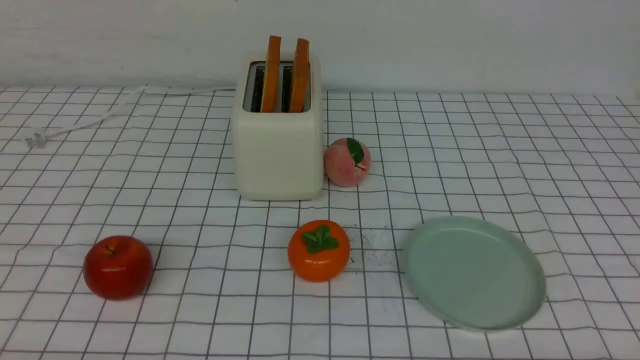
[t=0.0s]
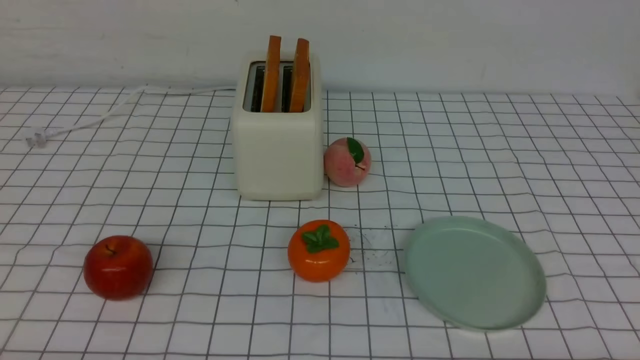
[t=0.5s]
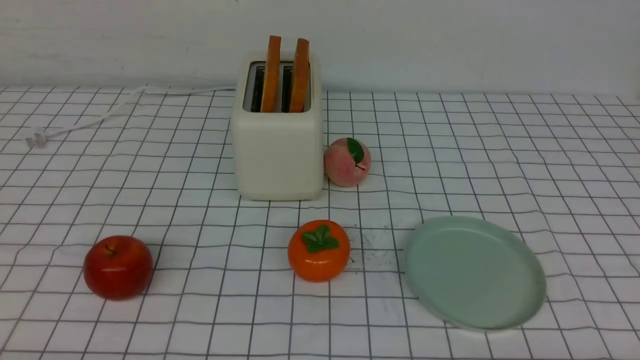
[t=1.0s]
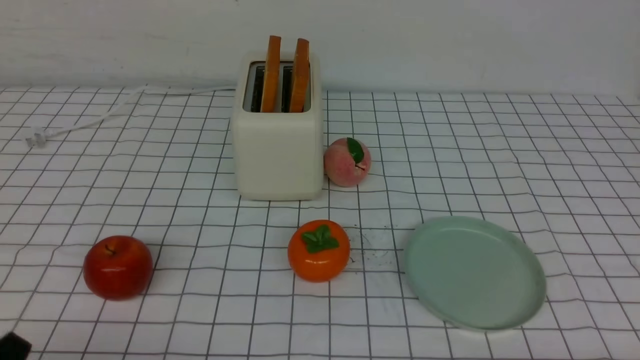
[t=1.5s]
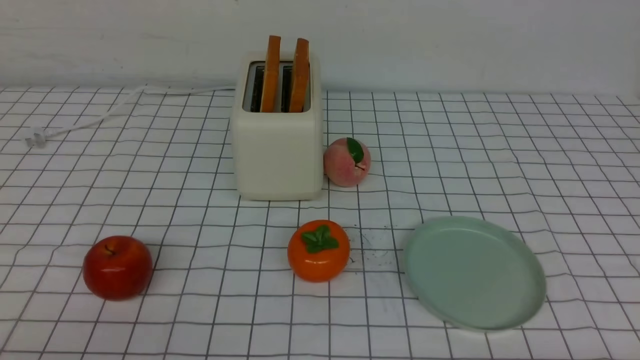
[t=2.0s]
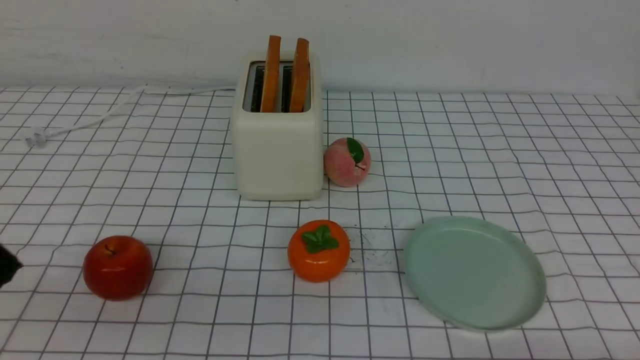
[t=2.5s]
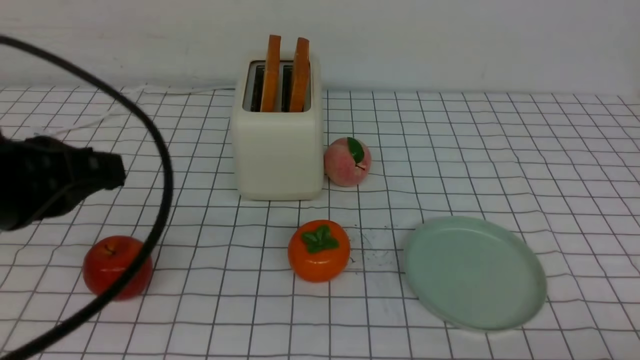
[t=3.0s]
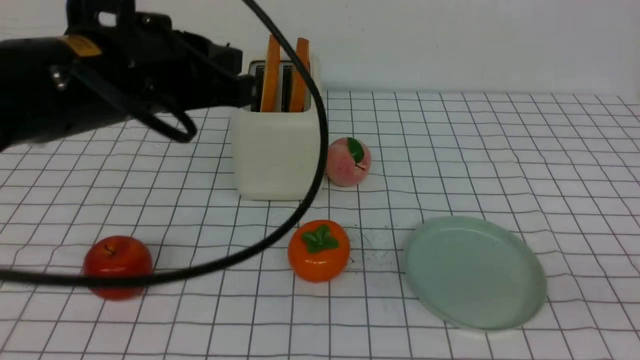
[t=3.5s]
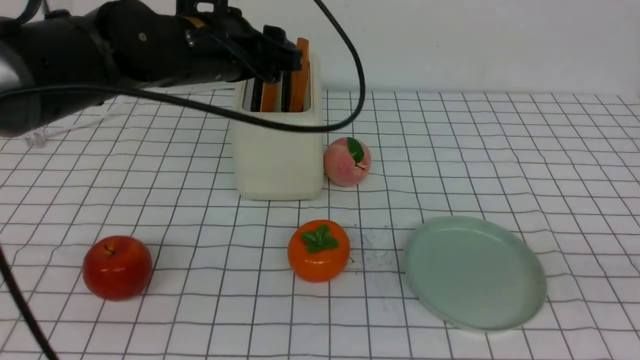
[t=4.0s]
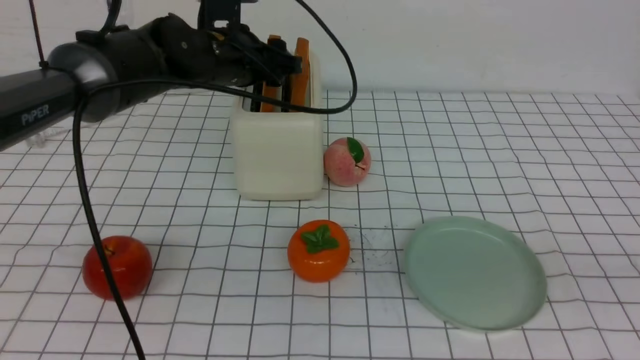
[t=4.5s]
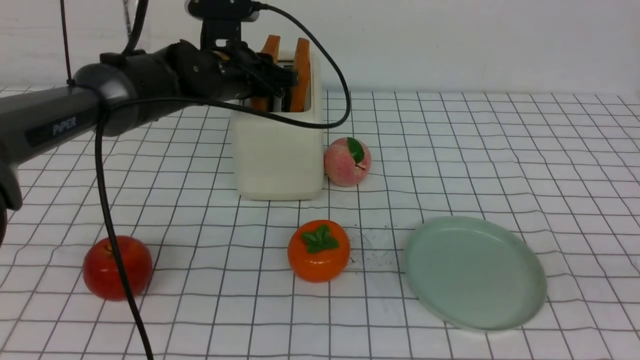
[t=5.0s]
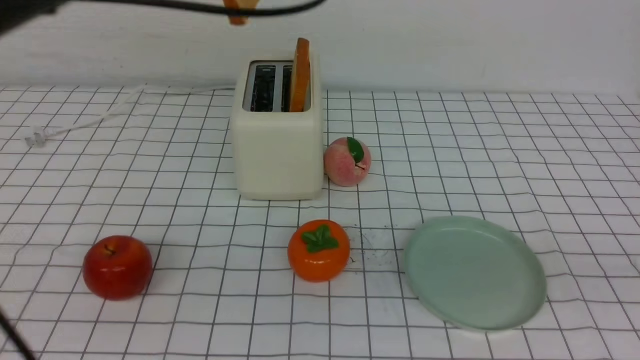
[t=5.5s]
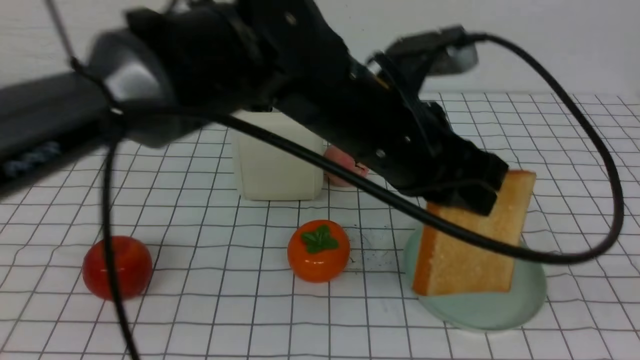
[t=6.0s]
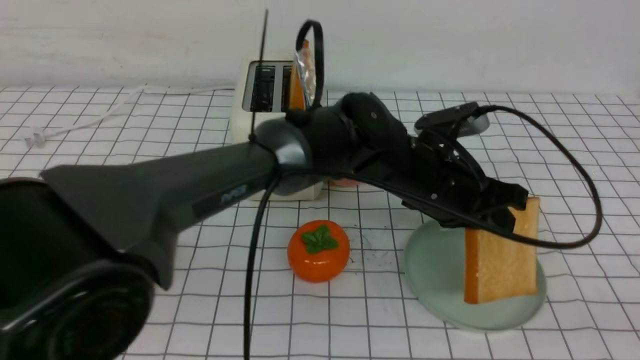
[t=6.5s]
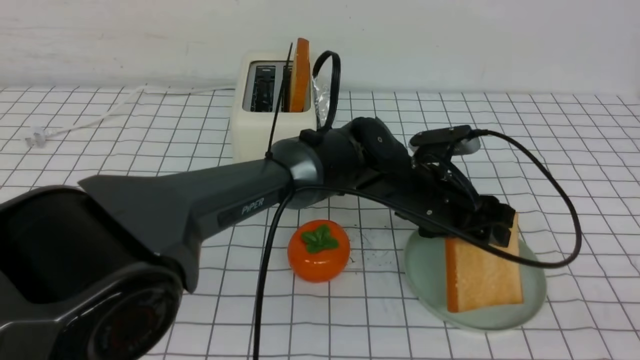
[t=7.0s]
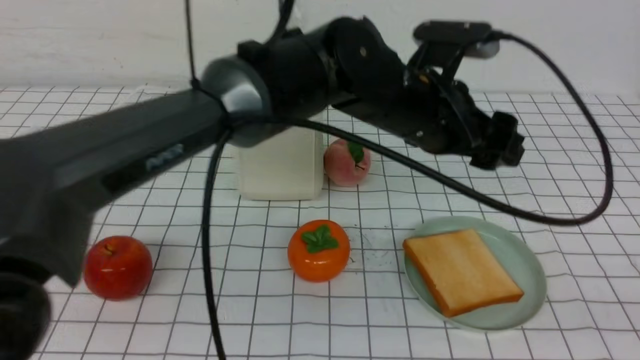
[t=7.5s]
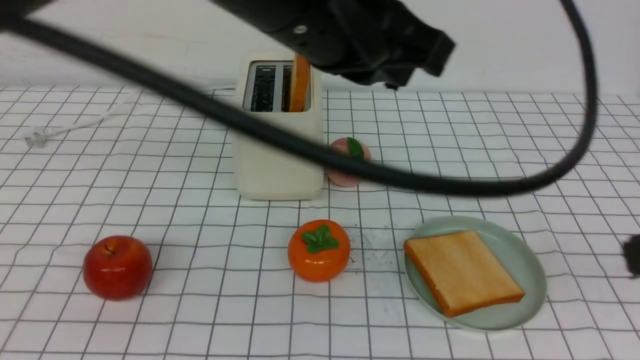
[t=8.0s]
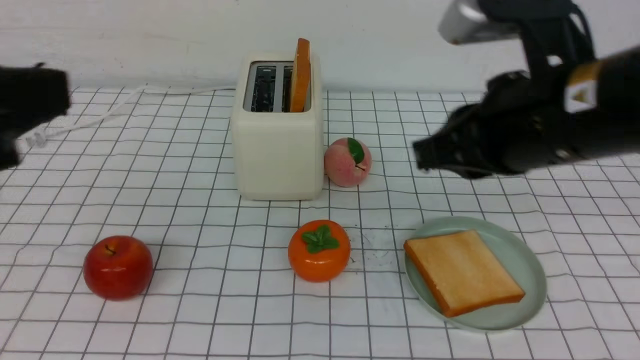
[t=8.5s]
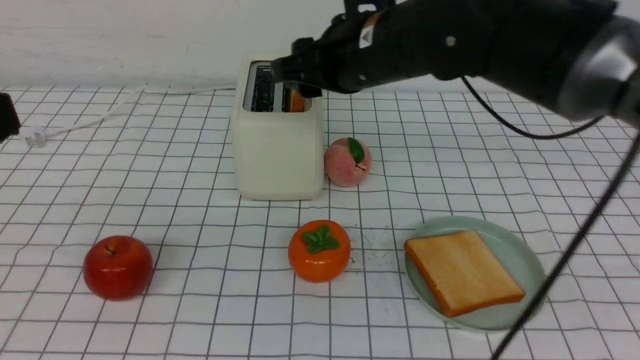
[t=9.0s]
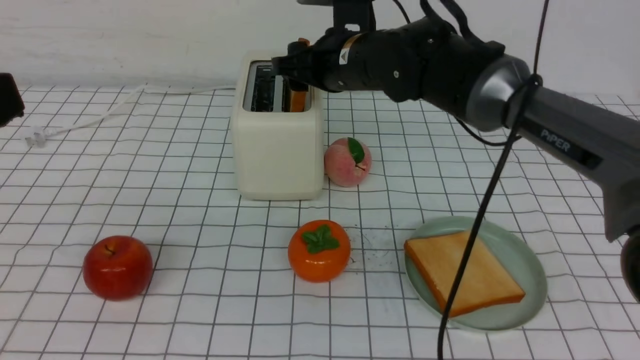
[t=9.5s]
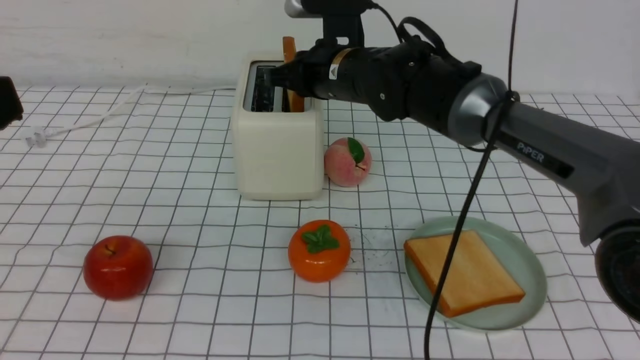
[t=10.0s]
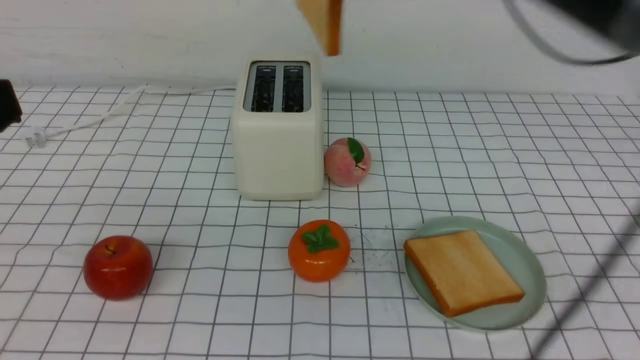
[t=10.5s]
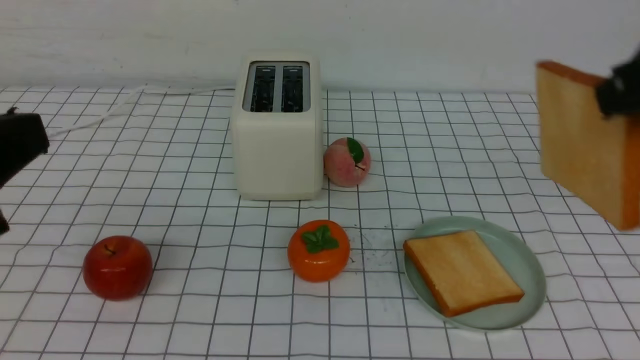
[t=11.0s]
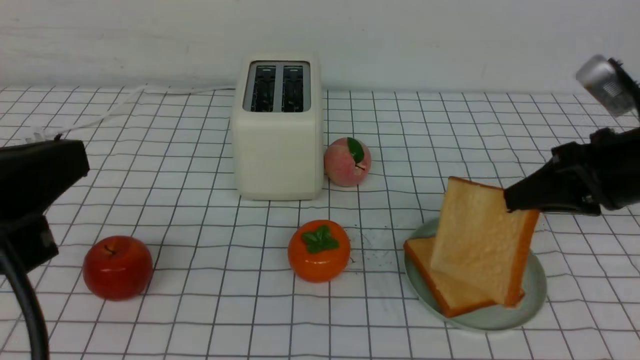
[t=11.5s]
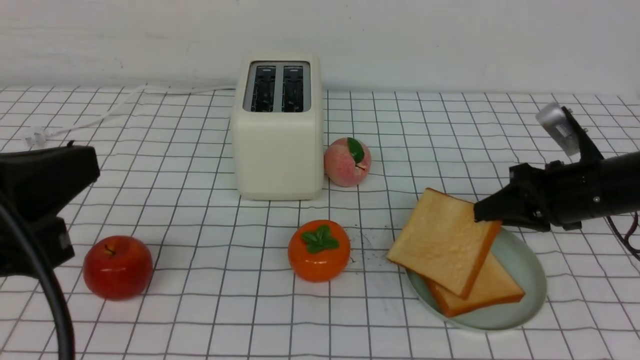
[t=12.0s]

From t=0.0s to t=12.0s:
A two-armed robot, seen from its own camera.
Task of the whole recording: take toasted bread from bread machine on white checkered table place on plate.
Step, from t=0.0s to t=5.0s: use the left arm to take out a slice of bread.
Step, from t=5.5s to t=7.0s: use the left arm to put a slice of bread into the empty plate.
Step, from t=8.0s to t=10.0s: use the right arm to take out a slice of bread.
From t=2.0s to t=4.0s: The left gripper heads forward and to the right, covering approximately 35 cm, and opens up. The right gripper moves upward, approximately 25 cm, and closes its fingers.
From t=4.0s to t=6.0s: The left gripper is displaced to the right and backward by some 15 cm, and closes up.
From t=6.0s to t=8.0s: The right gripper moves forward, some 5 cm. Meanwhile the left gripper moves upward, to the left and backward, roughly 15 cm, and opens, then closes again.
From t=8.0s to t=10.0s: The right gripper shifts some 40 cm forward and to the left, and opens and closes again. Meanwhile the left gripper moves to the left and backward, approximately 25 cm.
From t=10.0s to t=12.0s: The right gripper heads to the right and backward, covering some 30 cm.

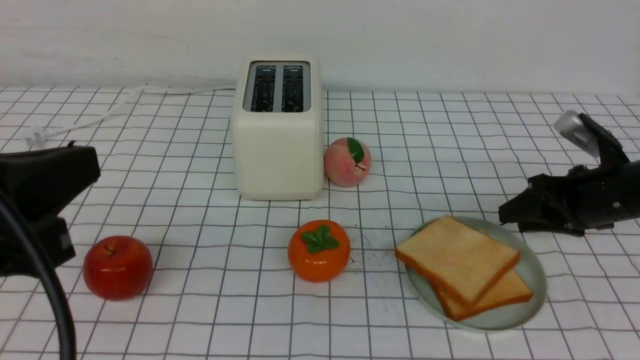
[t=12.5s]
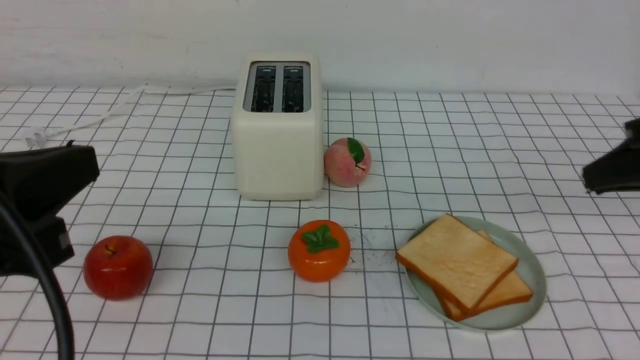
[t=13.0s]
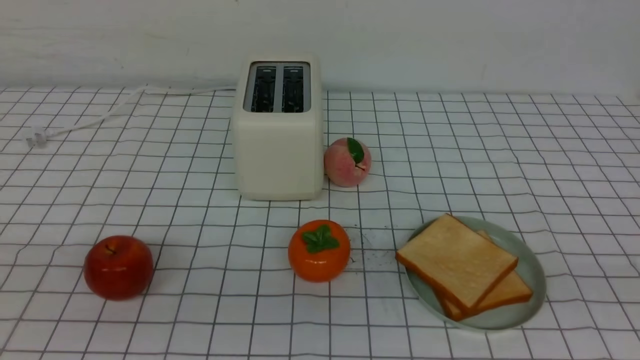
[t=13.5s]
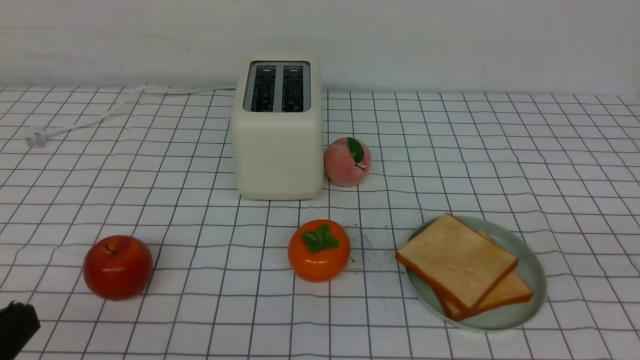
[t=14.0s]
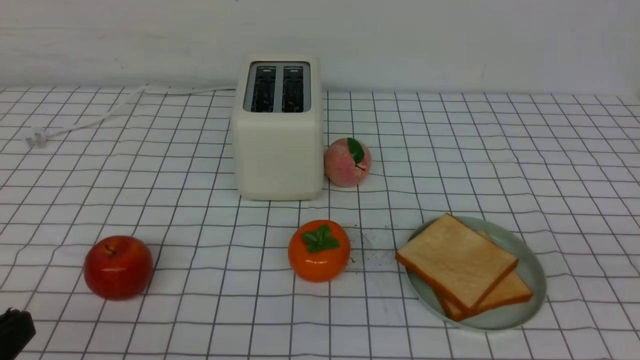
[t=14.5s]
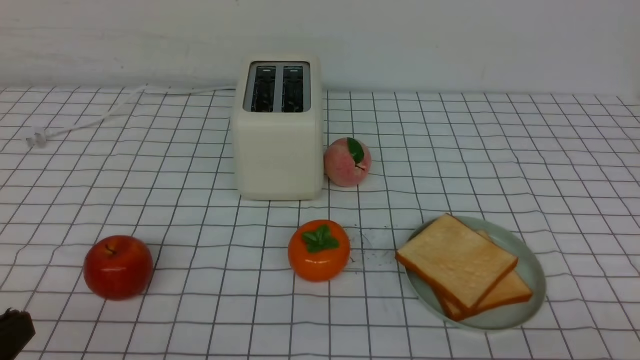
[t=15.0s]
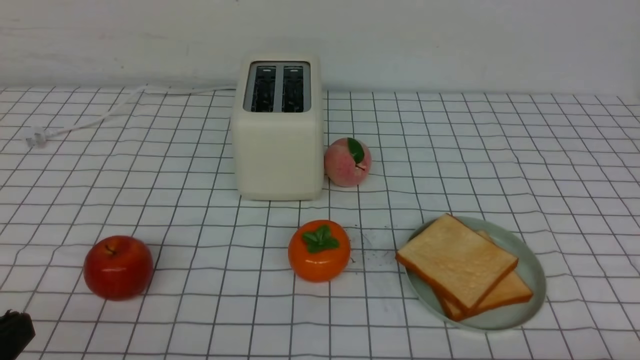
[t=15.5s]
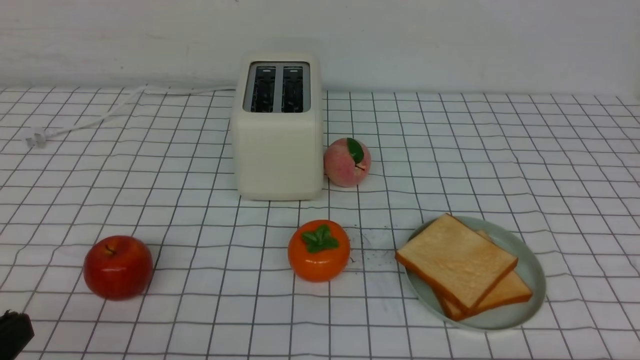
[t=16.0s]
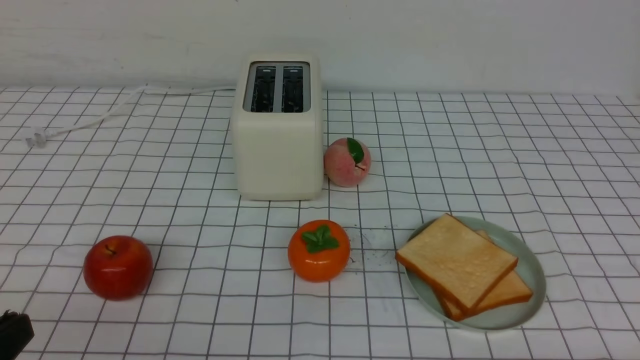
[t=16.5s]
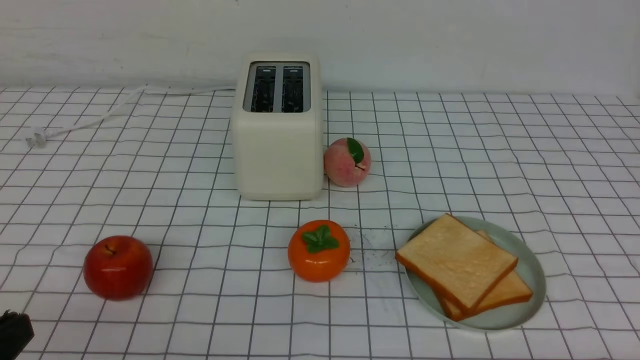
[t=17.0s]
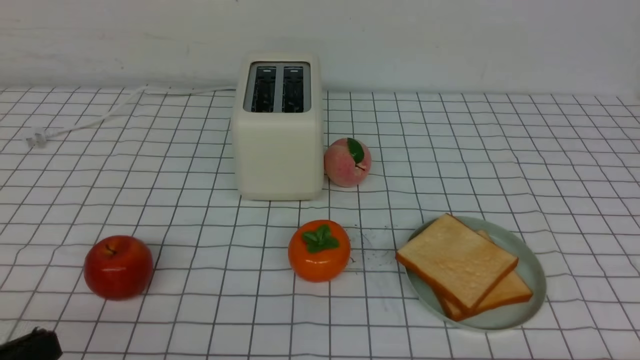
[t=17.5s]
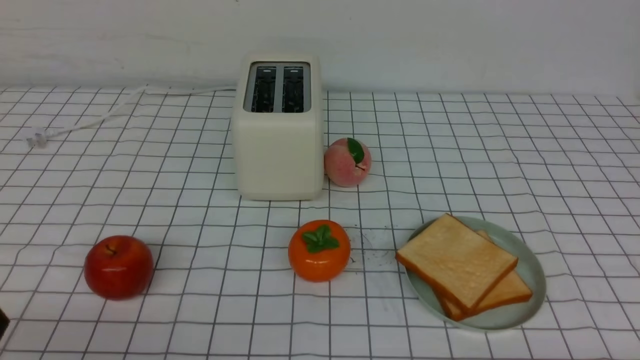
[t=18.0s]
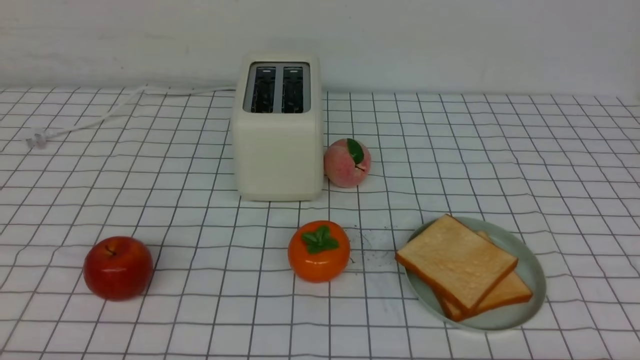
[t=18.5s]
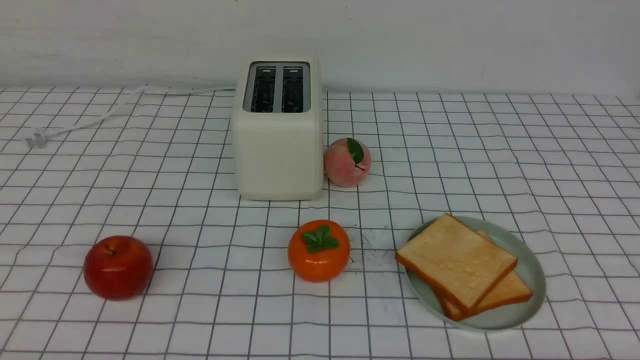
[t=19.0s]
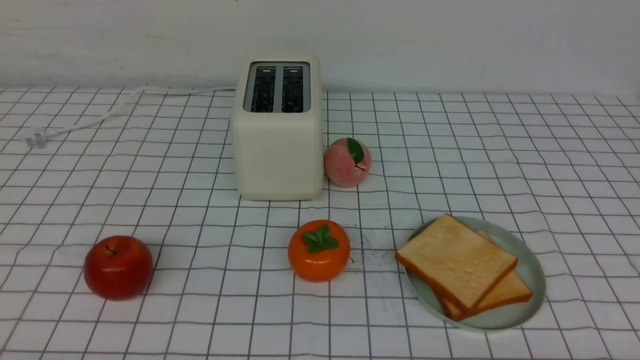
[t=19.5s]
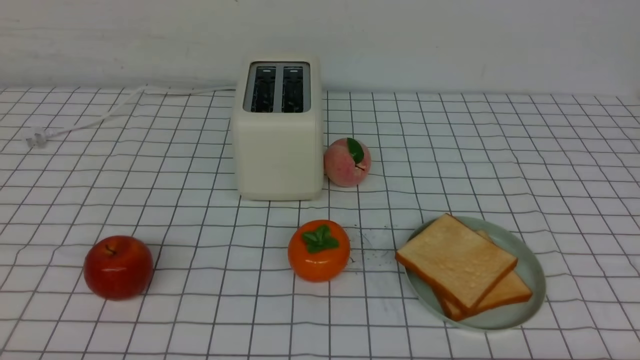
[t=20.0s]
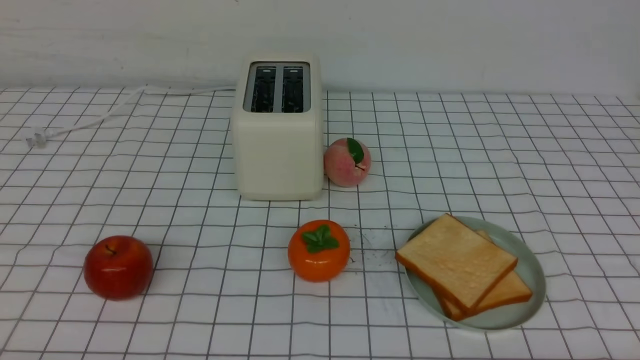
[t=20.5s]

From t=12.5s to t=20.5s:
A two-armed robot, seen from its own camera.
Task of the whole recording: take toasted bread from bread machine on white checkered table place on plate.
From t=12.5s to t=14.5s: The right gripper is displaced backward and upward by approximately 25 cm, and closes; the left gripper shifts approximately 10 cm downward and to the left.
From t=16.5s to t=18.5s: The left gripper heads downward, covering some 10 cm.
From t=18.5s to t=20.5s: Both grippers stay about where they are.
